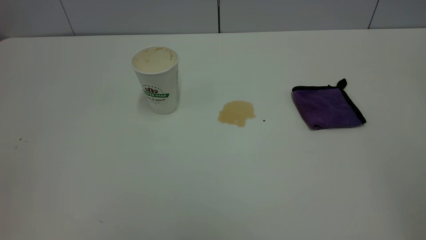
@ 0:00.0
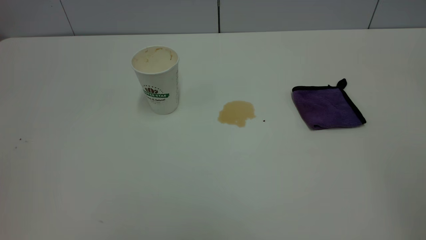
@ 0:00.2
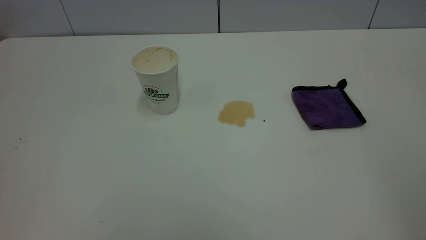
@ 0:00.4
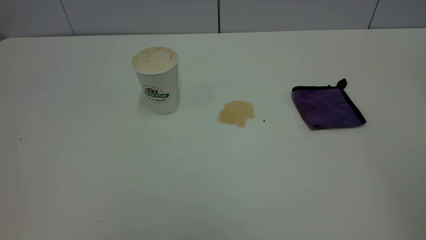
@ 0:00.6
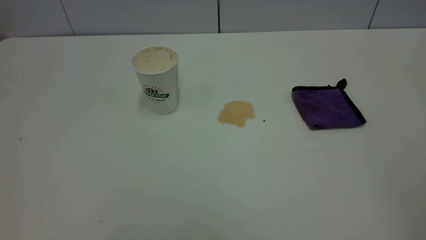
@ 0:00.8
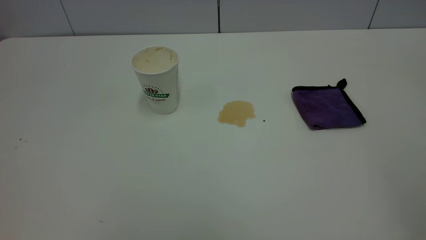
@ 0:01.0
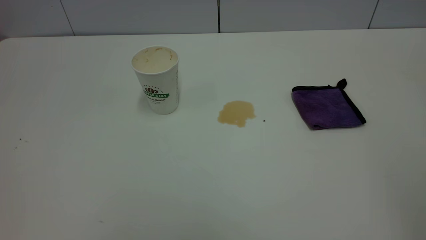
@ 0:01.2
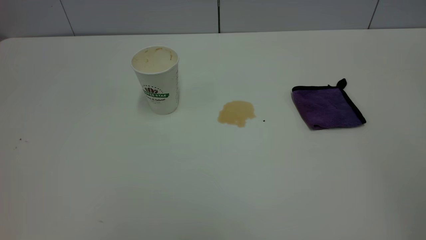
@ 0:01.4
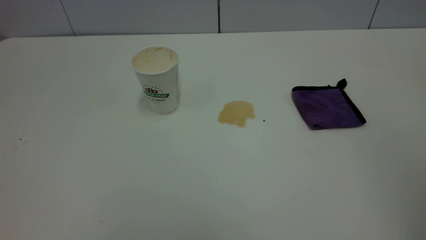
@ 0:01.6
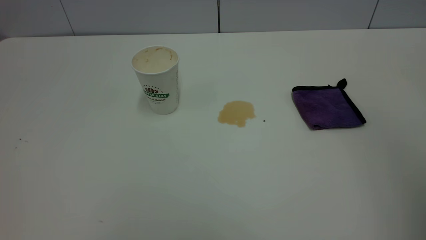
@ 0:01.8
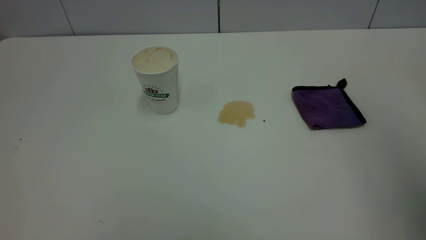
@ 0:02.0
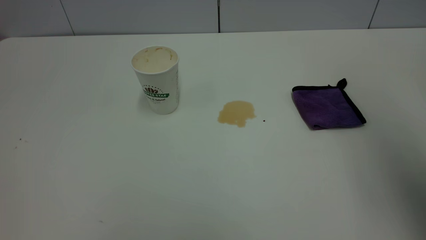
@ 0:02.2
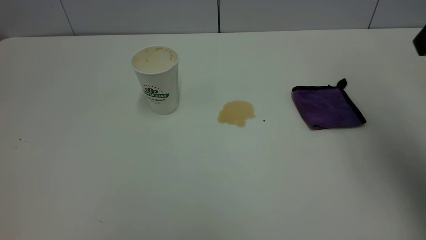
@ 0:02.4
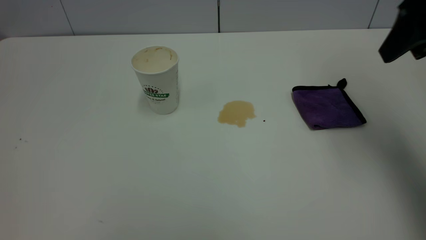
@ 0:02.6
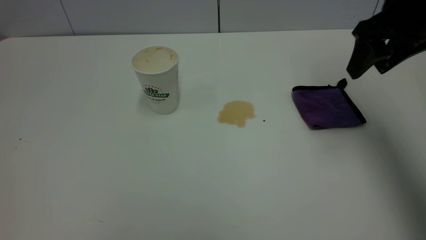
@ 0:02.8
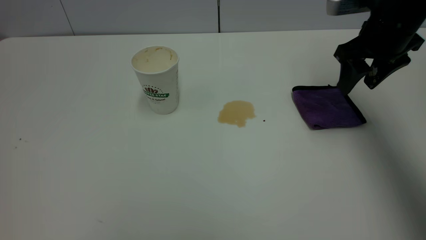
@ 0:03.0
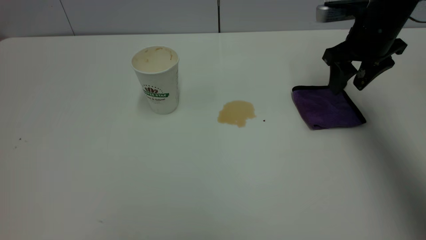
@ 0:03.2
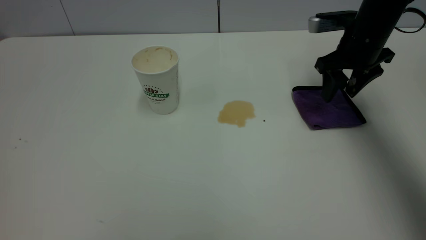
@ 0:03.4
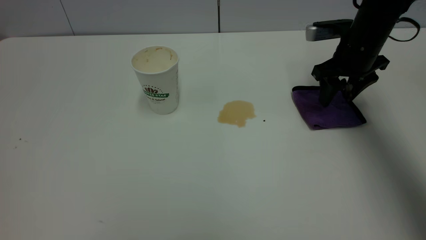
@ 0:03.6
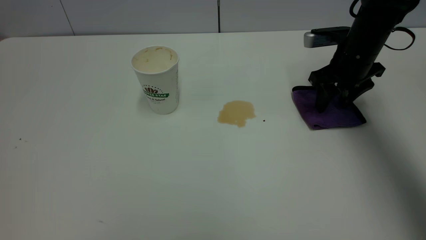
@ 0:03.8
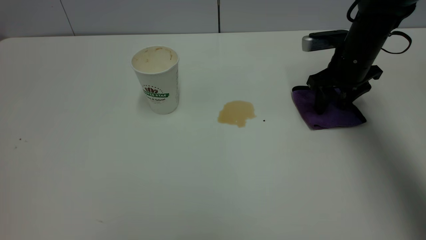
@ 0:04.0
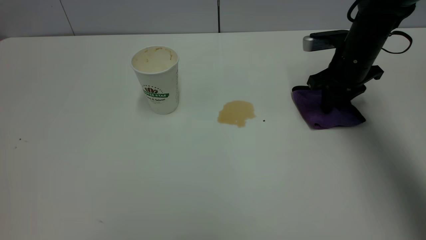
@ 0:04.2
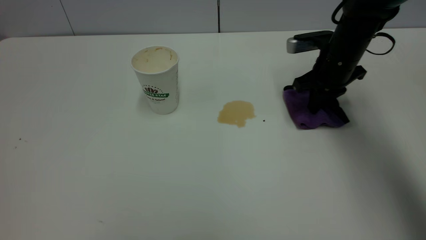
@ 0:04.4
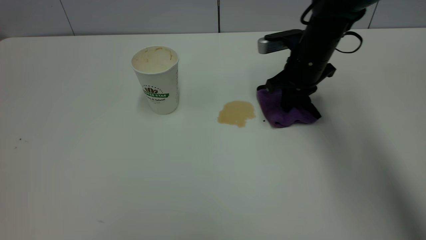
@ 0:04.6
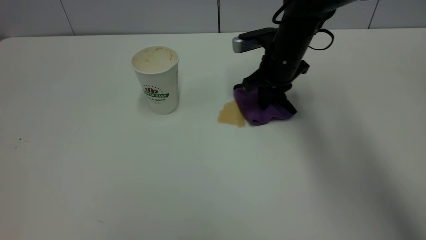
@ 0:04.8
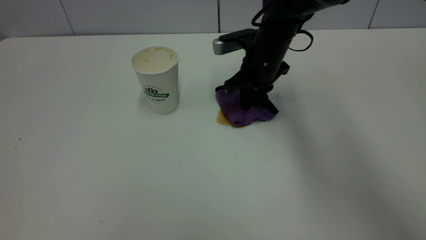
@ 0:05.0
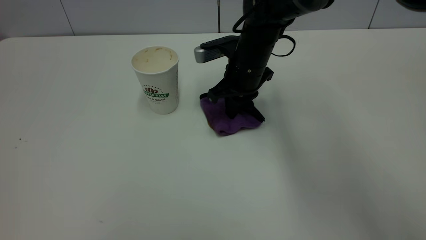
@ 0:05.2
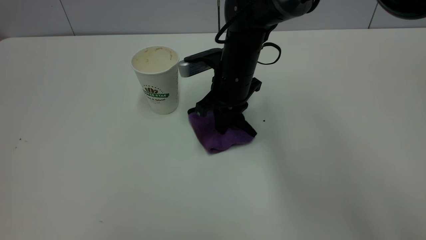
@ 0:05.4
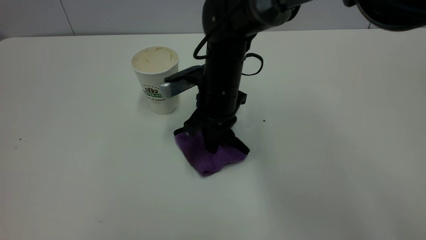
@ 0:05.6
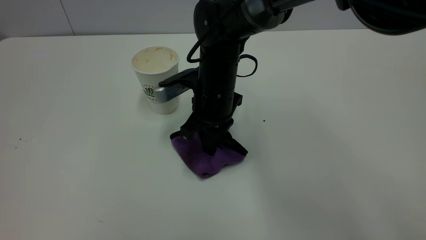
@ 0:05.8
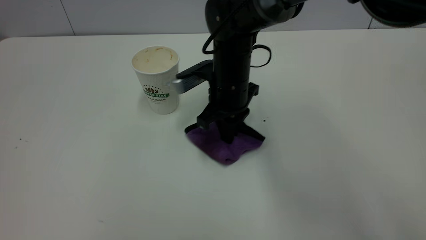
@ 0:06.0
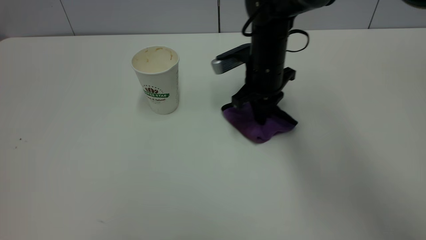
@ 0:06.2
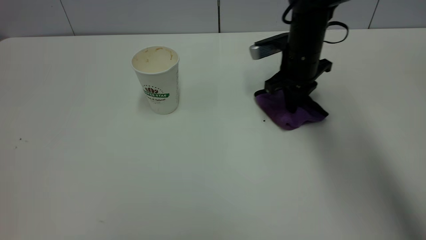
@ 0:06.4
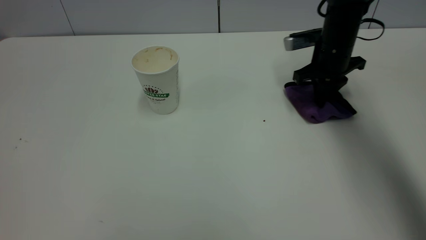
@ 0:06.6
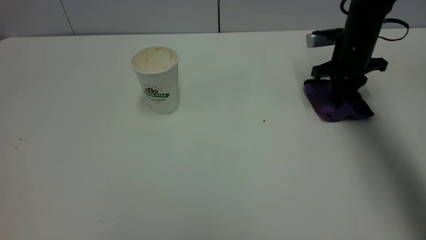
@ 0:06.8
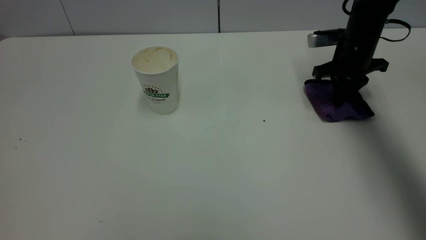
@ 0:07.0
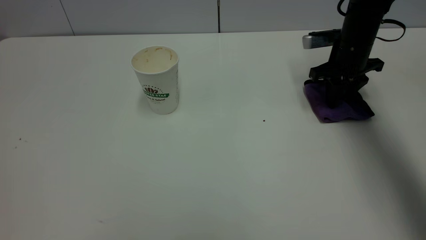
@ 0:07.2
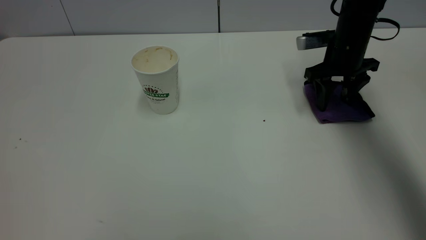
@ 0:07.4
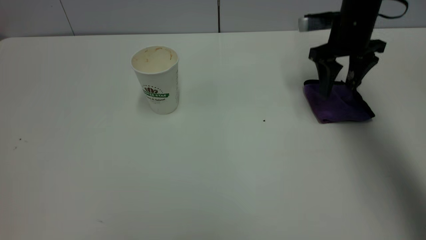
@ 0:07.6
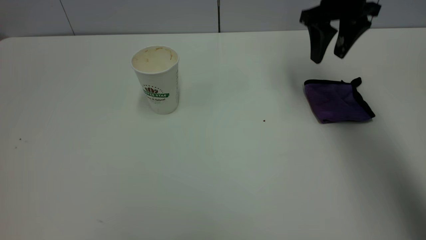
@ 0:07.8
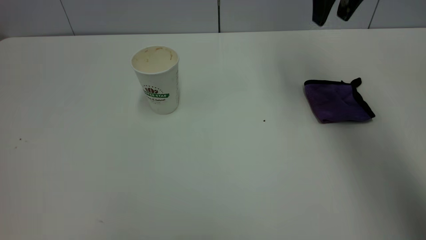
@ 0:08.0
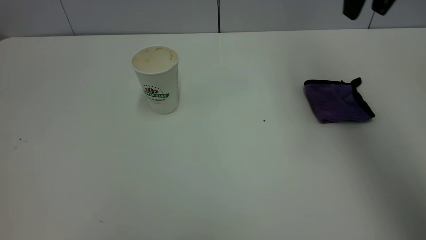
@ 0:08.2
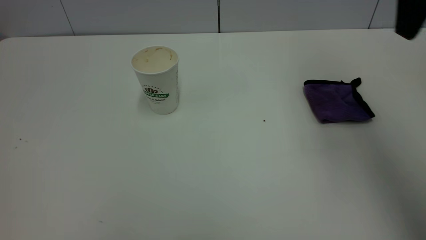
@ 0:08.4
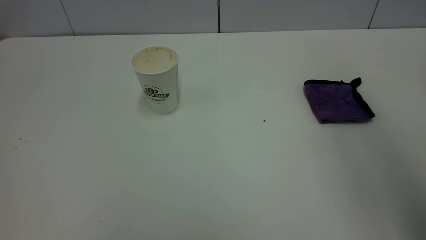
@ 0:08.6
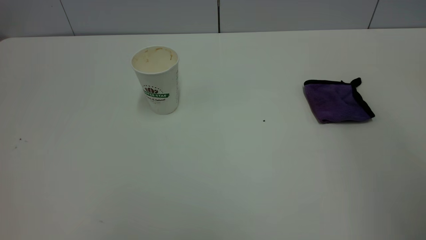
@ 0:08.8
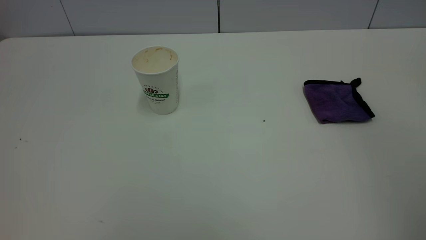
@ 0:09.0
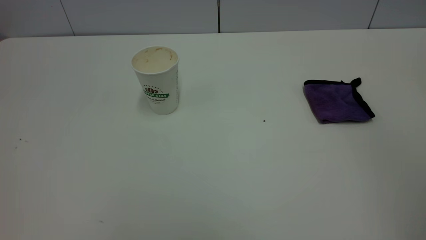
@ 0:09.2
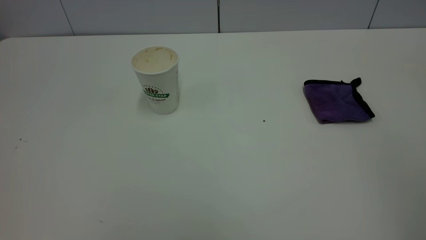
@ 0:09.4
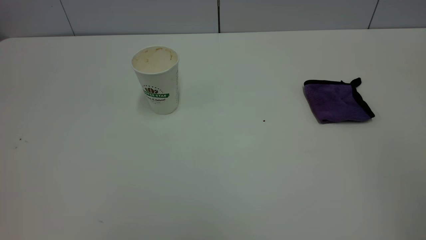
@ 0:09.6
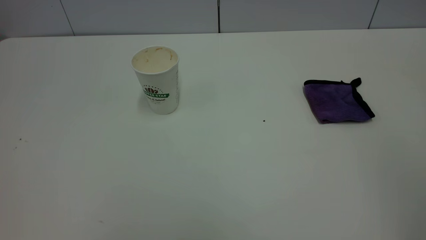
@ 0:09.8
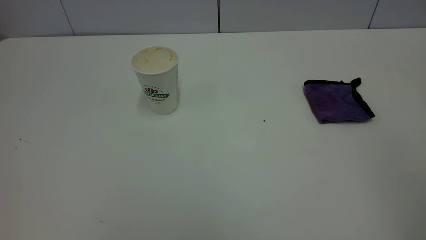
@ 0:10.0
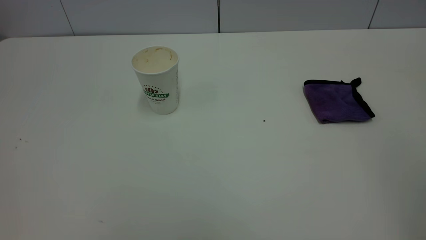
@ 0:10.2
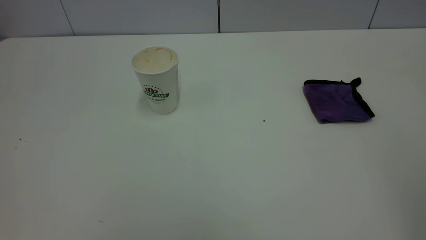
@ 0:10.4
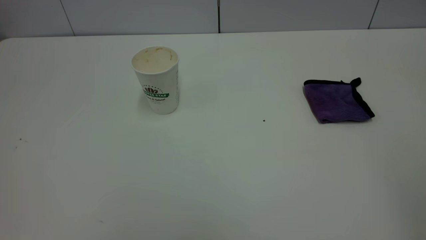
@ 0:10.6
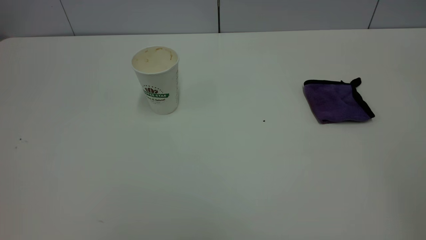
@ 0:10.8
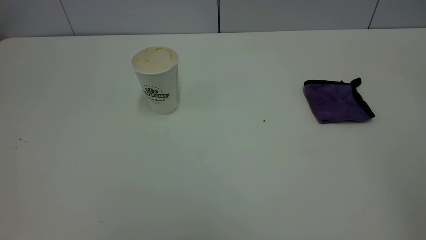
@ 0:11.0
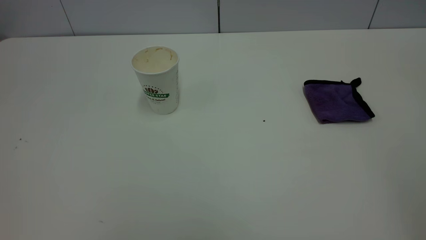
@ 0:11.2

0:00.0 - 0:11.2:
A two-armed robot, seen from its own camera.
Task of the whole recording: the left gripper pick up the fallen cup and place it upright, the right gripper grasp the purple rag and wipe the tea stain on the table, the right gripper put the purple rag back in its original position.
Step, 0:00.0 - 0:07.8: Wipe the stains off the table with a rag.
0:01.6 - 0:03.2: The right gripper is displaced forward and downward by some 40 cm.
0:03.2 - 0:04.8: The right gripper travels to the left and downward by some 15 cm, and closes.
0:04.8 - 0:06.4: The right gripper travels to the left and back again, approximately 10 cm each way.
0:06.4 - 0:08.0: The right gripper goes approximately 20 cm upward, and opens.
0:08.0 - 0:09.6: The right gripper heads backward, covering roughly 40 cm.
